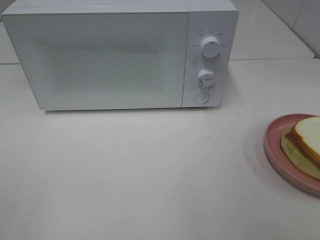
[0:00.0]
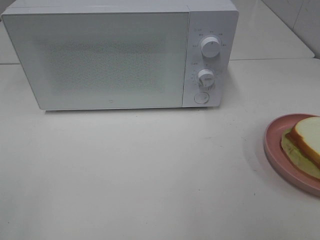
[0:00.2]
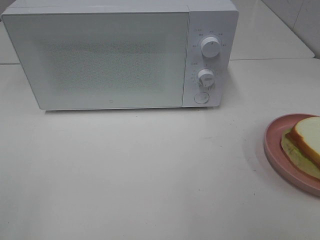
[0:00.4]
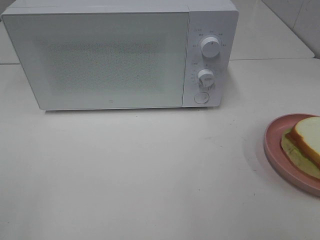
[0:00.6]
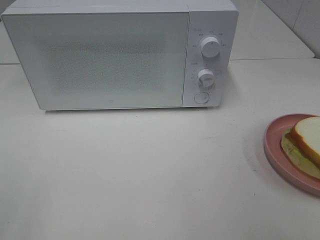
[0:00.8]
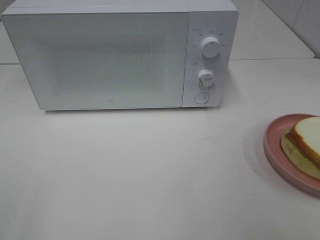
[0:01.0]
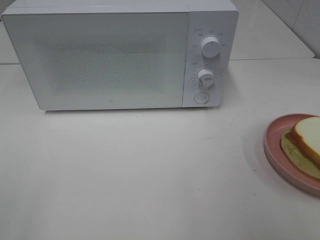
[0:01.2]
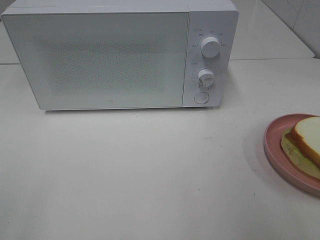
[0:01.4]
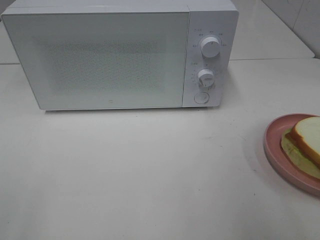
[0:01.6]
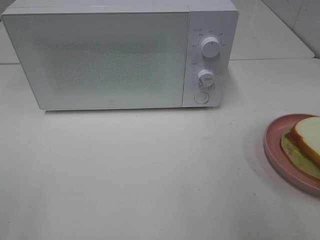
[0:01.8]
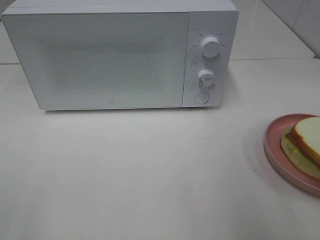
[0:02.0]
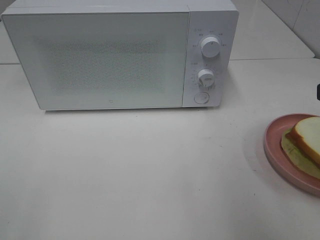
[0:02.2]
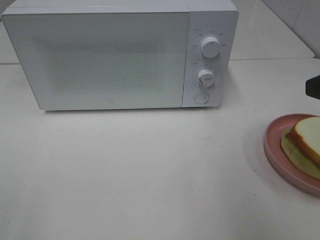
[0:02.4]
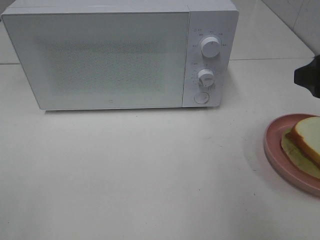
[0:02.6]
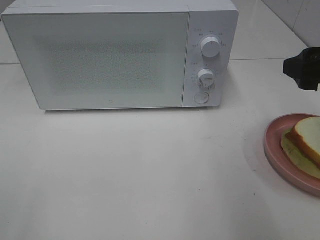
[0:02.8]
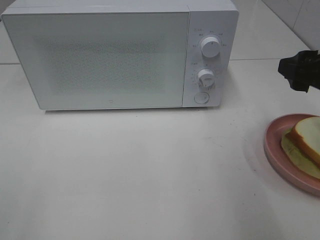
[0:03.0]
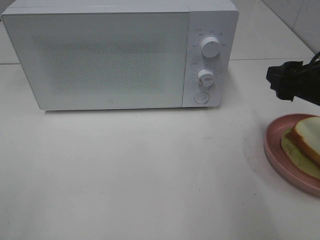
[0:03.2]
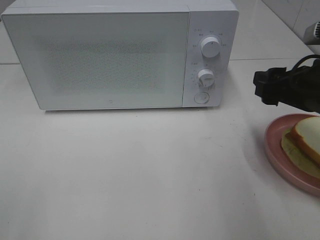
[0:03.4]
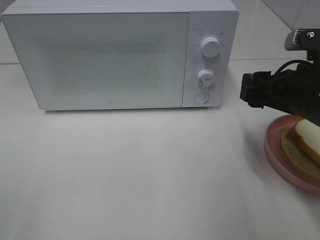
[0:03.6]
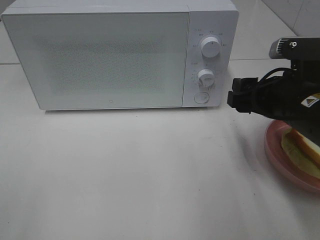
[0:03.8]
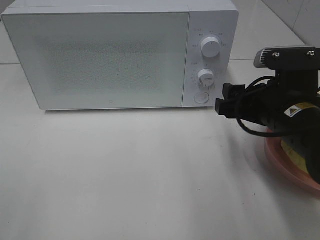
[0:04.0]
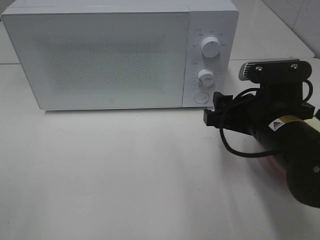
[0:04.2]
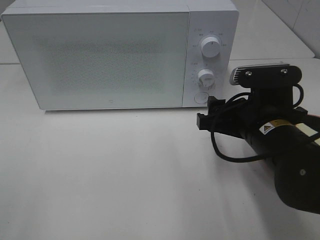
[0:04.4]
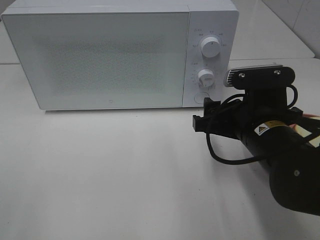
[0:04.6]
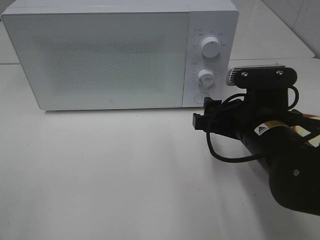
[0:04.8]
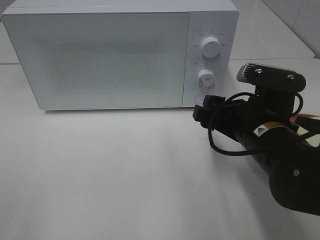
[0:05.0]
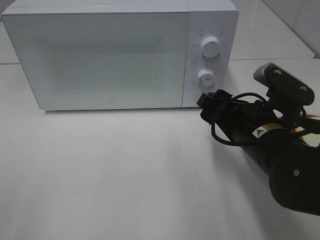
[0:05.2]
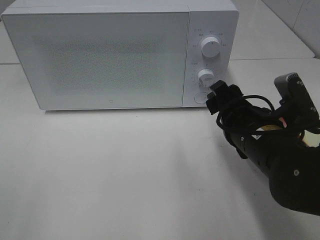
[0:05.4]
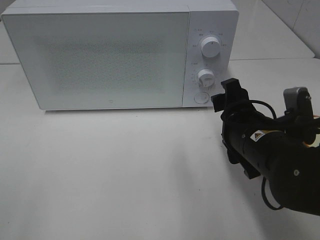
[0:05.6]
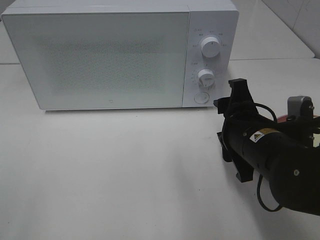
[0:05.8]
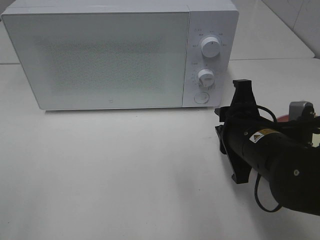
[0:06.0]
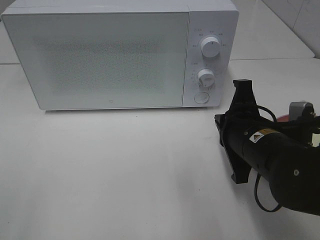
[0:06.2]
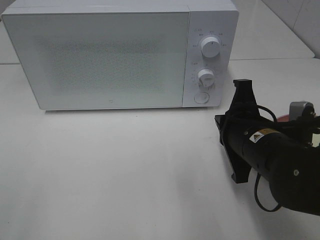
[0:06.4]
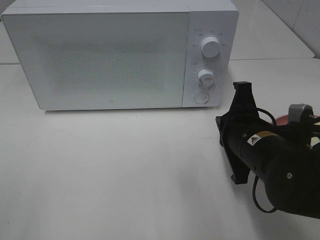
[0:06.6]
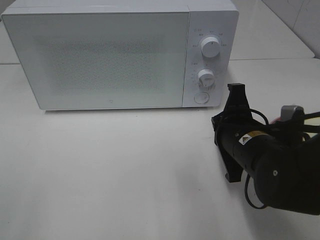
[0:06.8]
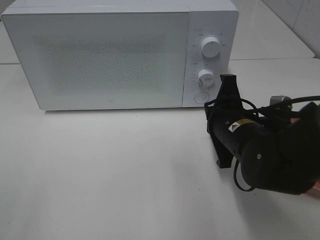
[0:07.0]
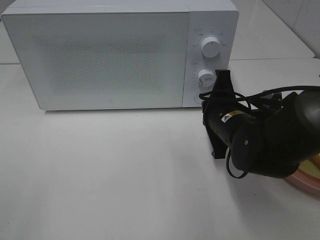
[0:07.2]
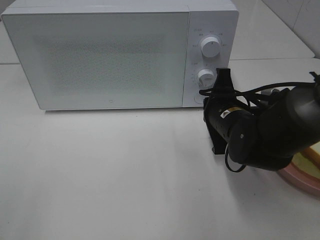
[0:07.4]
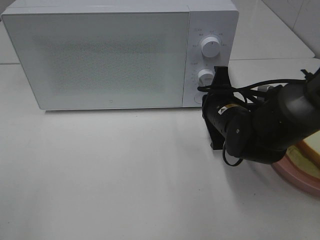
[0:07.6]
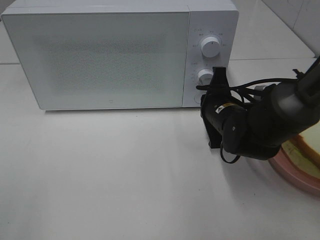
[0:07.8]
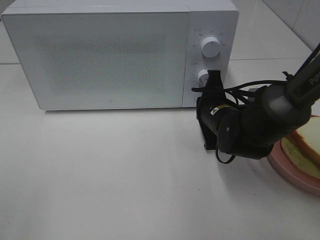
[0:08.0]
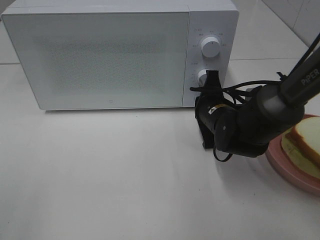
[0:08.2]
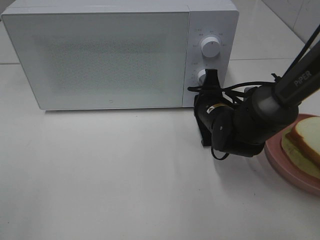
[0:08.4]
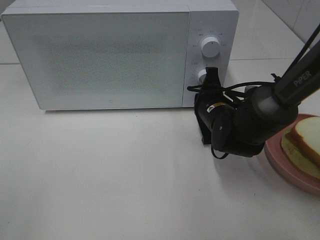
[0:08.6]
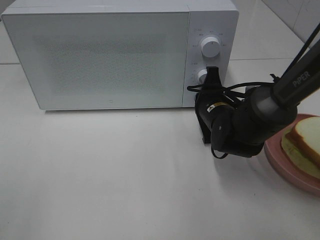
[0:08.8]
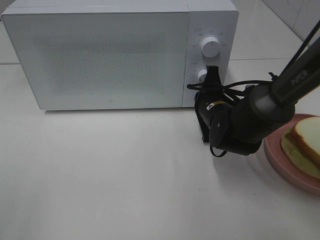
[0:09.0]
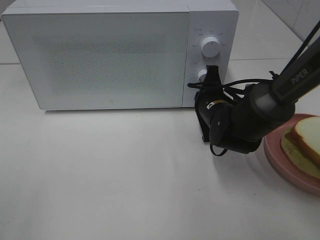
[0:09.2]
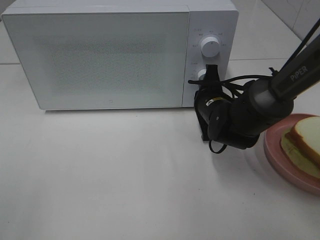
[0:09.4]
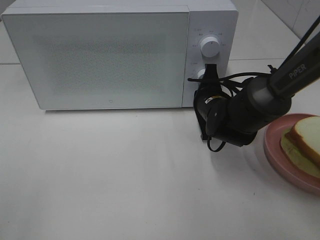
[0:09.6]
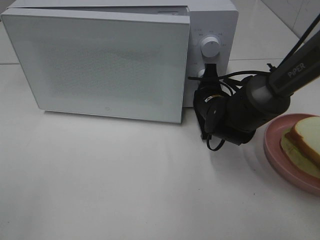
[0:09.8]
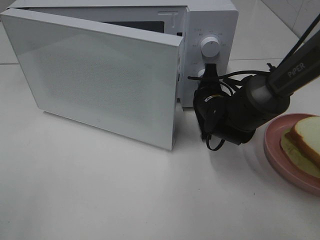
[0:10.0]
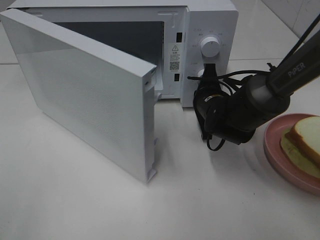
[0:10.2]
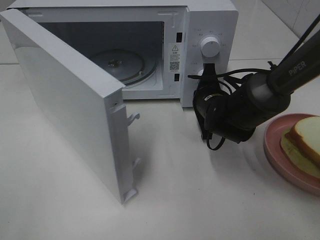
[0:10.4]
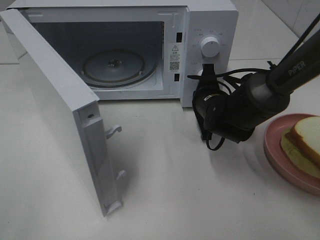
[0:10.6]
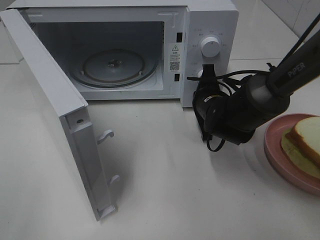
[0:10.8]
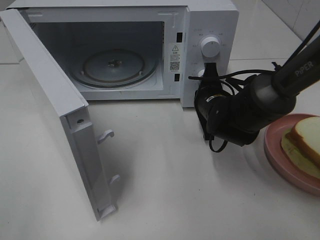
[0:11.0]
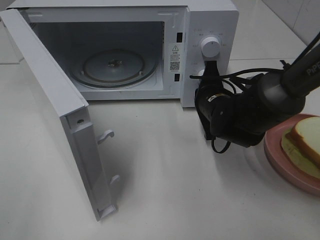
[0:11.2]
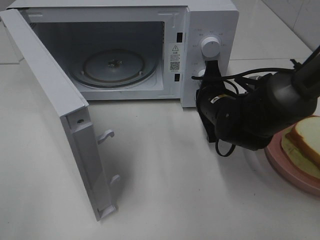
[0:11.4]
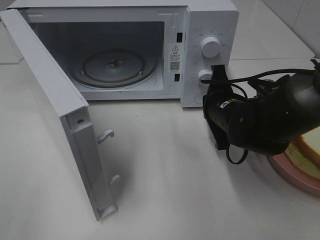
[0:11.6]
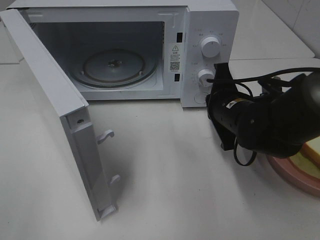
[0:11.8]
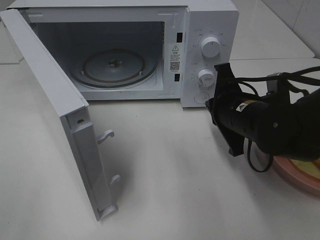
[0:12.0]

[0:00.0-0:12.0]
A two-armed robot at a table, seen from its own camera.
Task of the whole recording: Heat Sandwich.
Step, 0:00.0 to 0:11.2: Right hand: press the switch.
0:01.6 to 0:03.0: The right gripper heads forward and downward, covering approximately 15 cm.
0:03.0 to 0:04.4: The right gripper goes some 15 cm to the left and downward.
0:04.4 to 0:06.0: The right gripper closes its fingers.
0:06.0 to 0:07.6: The right gripper travels forward by some 10 cm.
0:07.6 to 0:09.0: The grippers stay close to where they were, moving slightly.
0:10.4 to 0:12.0: The right gripper moves backward and upward, about 10 cm.

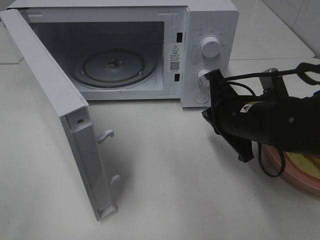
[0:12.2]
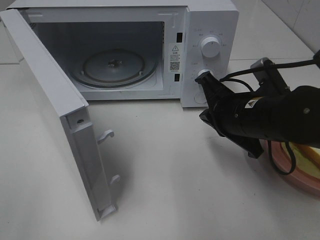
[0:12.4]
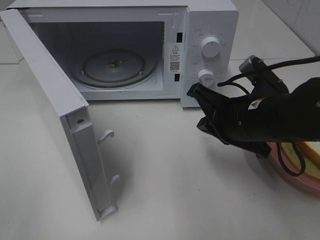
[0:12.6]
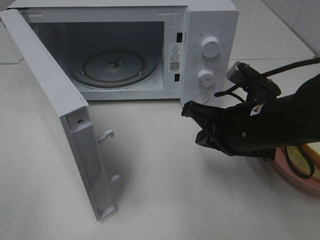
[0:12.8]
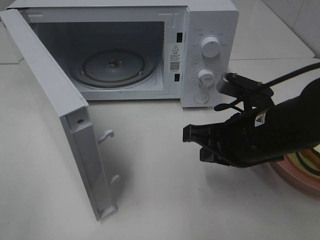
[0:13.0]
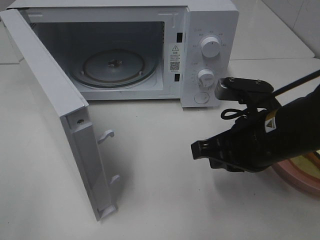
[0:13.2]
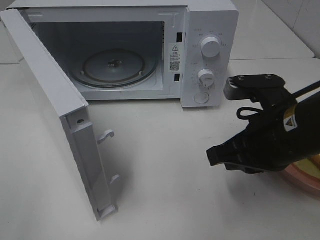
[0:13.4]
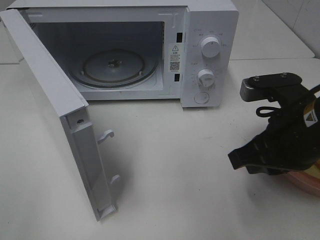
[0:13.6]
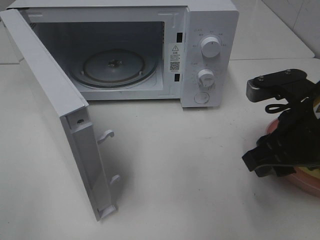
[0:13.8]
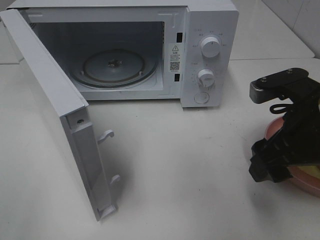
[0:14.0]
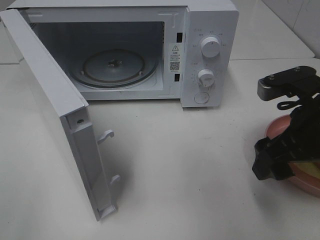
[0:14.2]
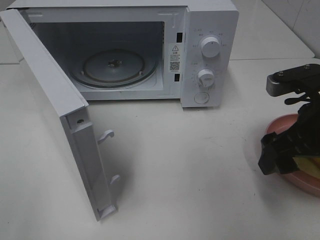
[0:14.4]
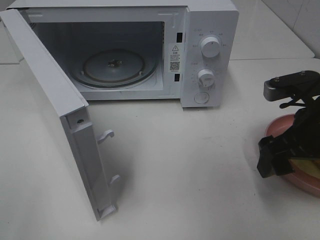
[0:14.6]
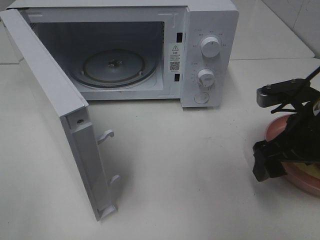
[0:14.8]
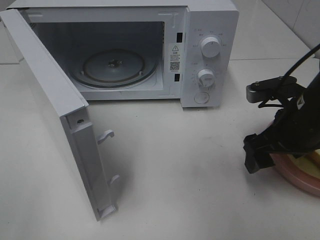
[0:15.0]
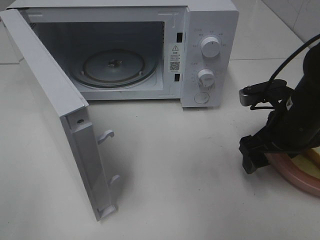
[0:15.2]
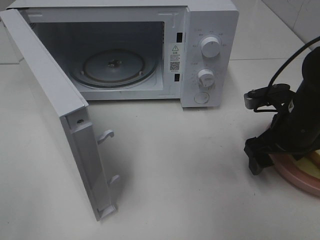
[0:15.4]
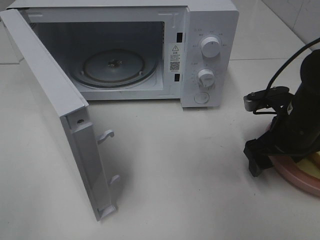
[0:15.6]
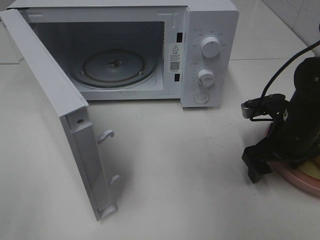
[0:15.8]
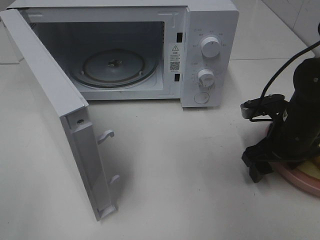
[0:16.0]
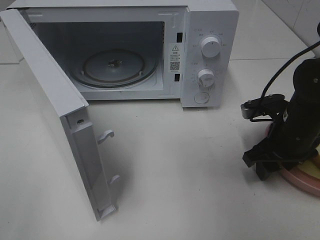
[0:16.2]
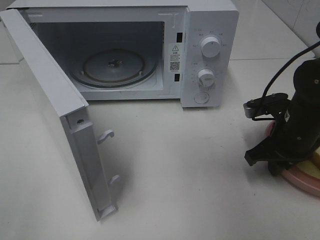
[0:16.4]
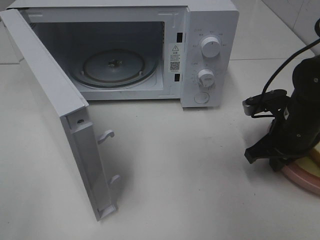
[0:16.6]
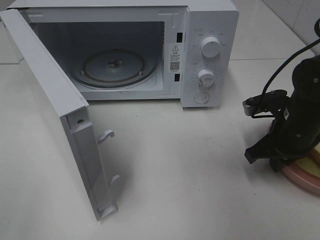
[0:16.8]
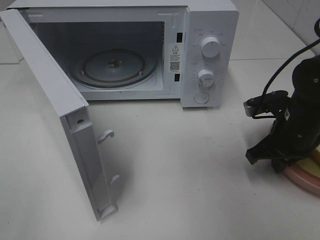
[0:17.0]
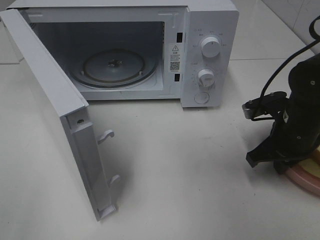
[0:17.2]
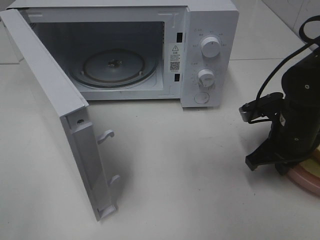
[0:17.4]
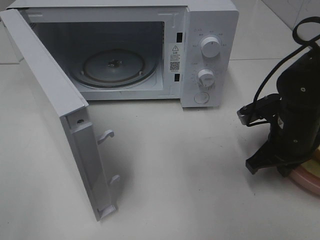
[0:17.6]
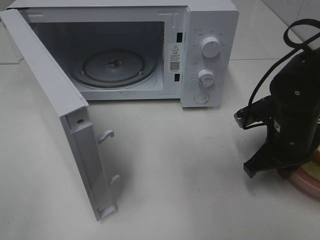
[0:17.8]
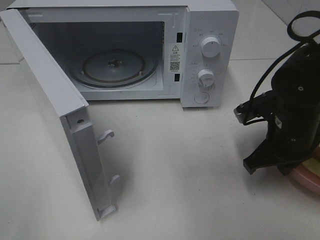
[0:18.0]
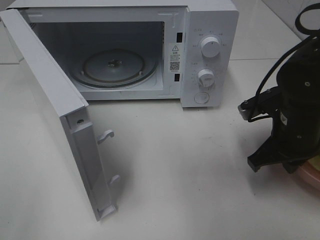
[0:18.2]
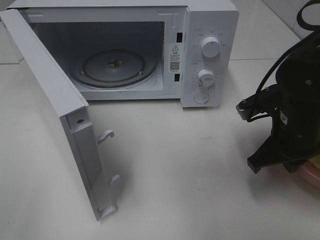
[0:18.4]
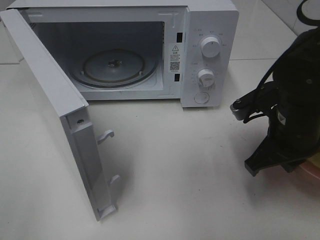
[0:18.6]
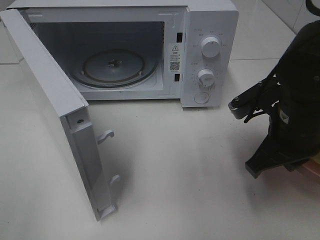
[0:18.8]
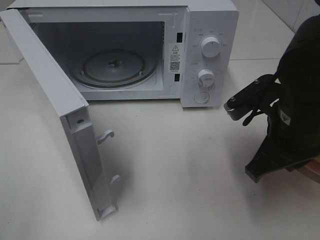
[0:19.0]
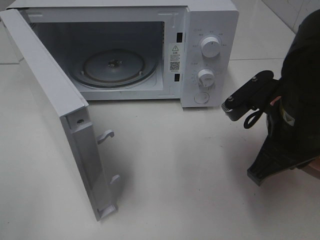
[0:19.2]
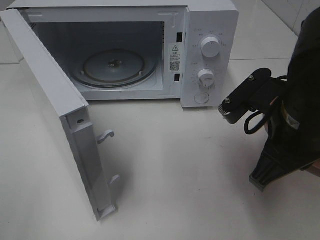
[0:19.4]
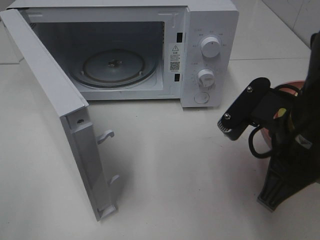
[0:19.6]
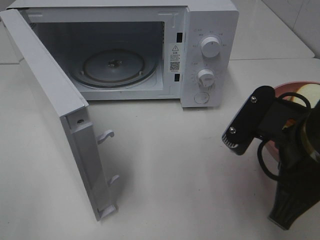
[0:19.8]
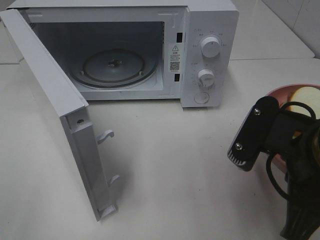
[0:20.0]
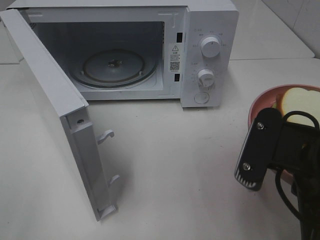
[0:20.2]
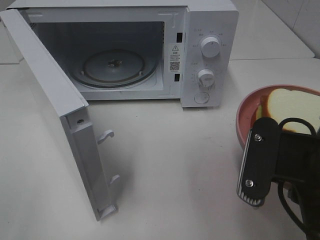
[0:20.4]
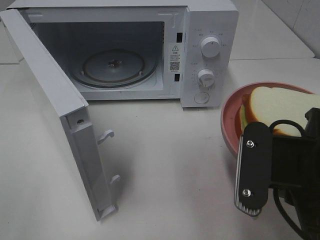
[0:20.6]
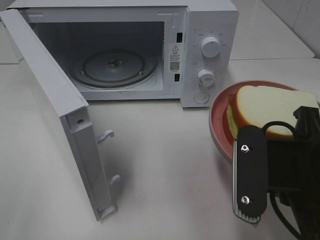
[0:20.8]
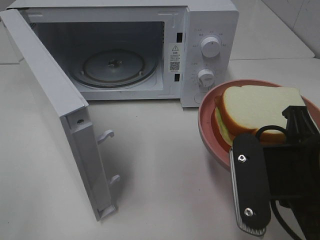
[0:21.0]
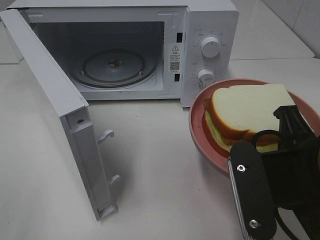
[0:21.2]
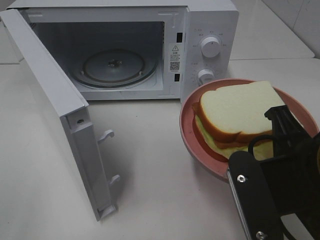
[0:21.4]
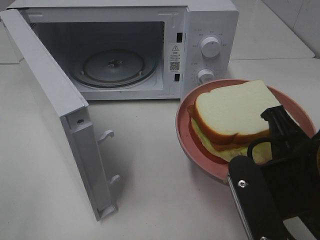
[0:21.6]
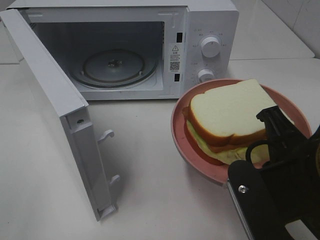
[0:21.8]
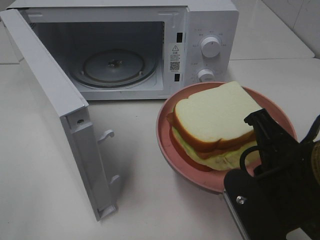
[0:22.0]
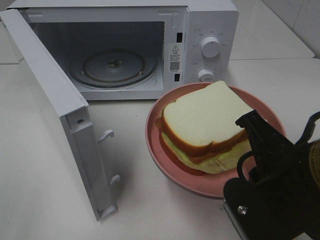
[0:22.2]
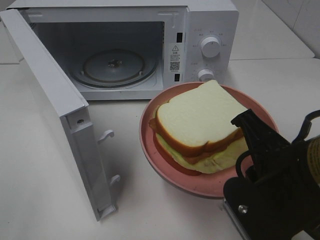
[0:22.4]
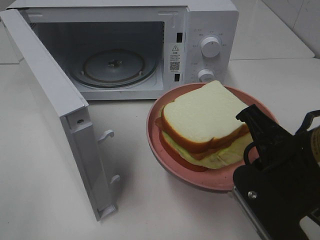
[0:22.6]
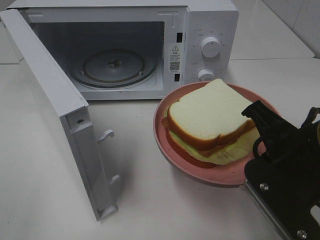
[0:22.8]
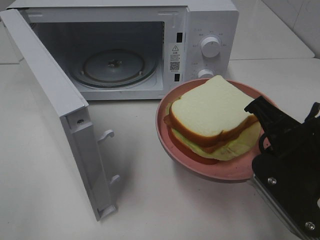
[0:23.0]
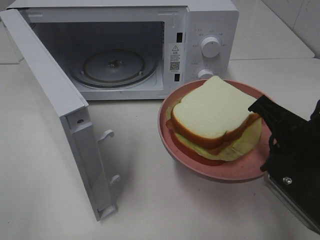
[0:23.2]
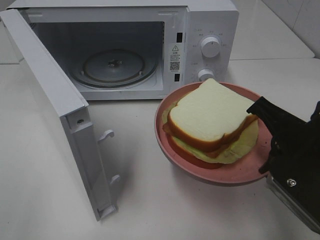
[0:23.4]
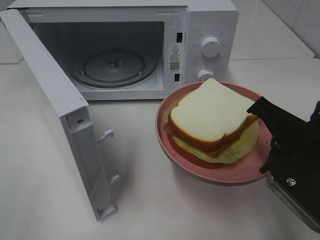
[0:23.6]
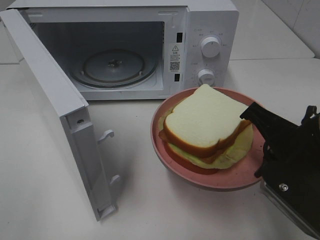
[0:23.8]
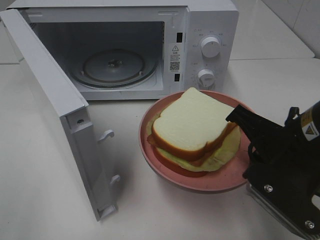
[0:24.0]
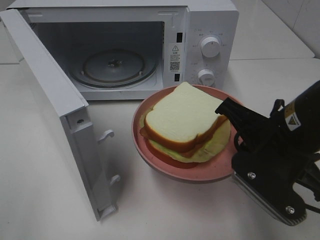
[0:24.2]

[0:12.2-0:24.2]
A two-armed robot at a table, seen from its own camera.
Task of the whole recording: Heat Sandwich.
Step, 0:12.2 to 0:16.6: Right hand: grab the plate with the sandwich.
0:12.2 to 0:13.8: The right gripper shifts roughly 10 cm backward and upward, and opens.
0:13.8 to 0:15.2: The right gripper is displaced forward and downward by roughly 10 cm, and opens its fingers.
0:15.2 to 0:16.6: The right gripper closes up.
0:16.6 to 0:18.2: There are only small adjustments of the grippers.
0:18.2 to 0:19.8: The right gripper moves backward, upward and to the left, some 15 cm.
0:22.6 to 0:24.2: The right gripper goes roughly 5 cm forward.
